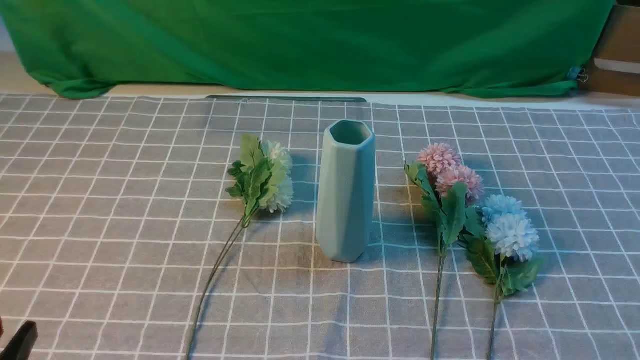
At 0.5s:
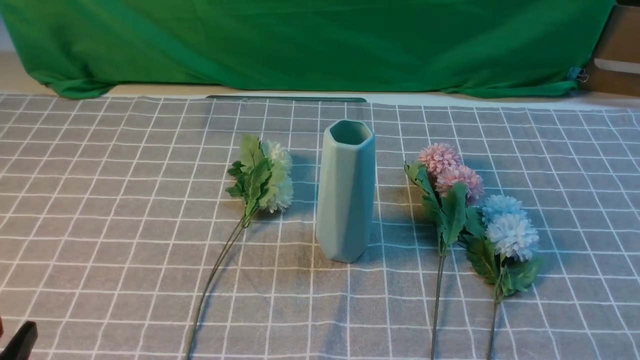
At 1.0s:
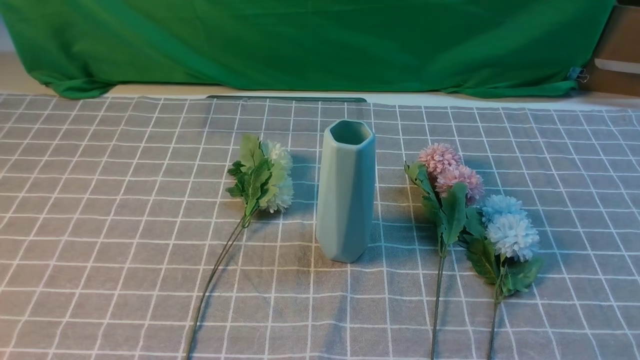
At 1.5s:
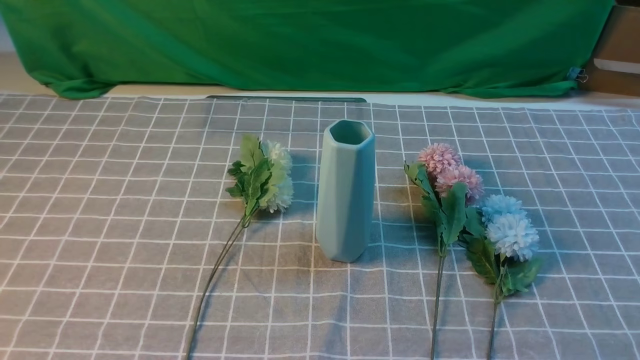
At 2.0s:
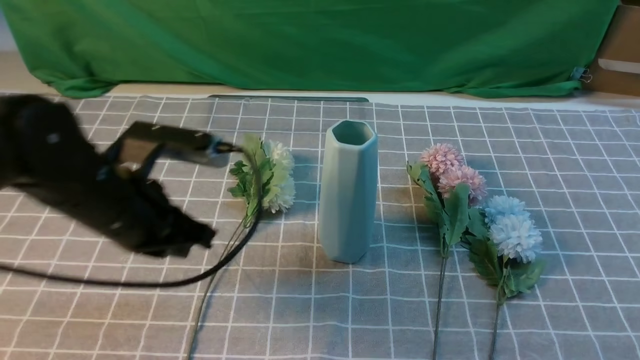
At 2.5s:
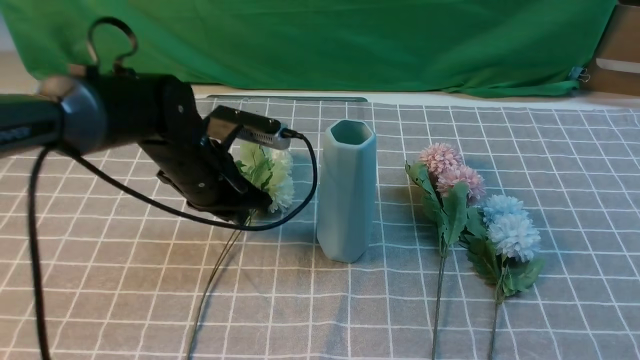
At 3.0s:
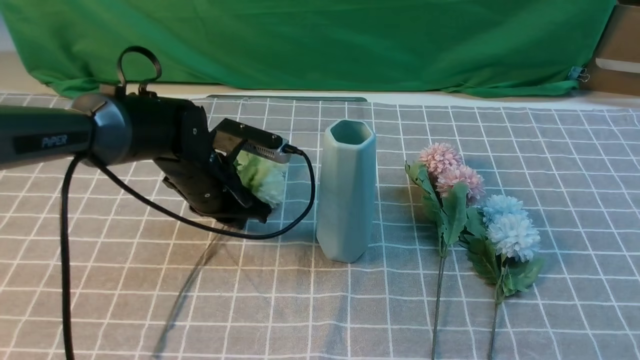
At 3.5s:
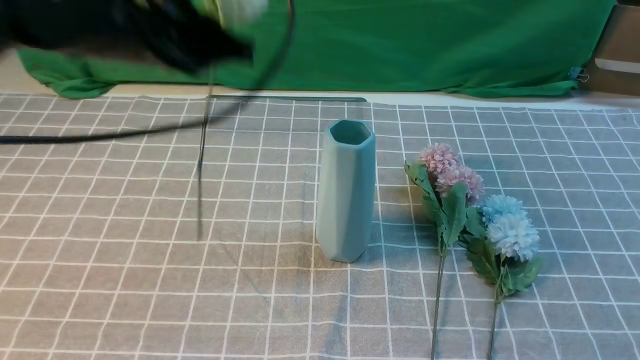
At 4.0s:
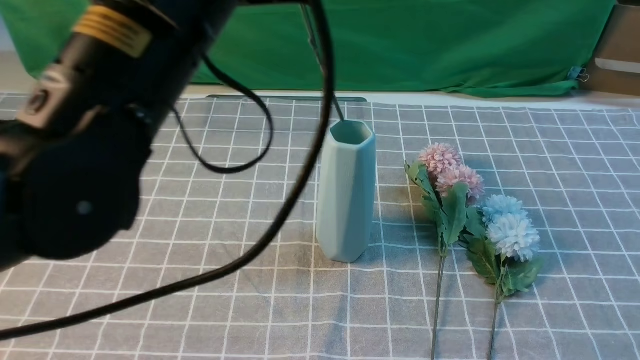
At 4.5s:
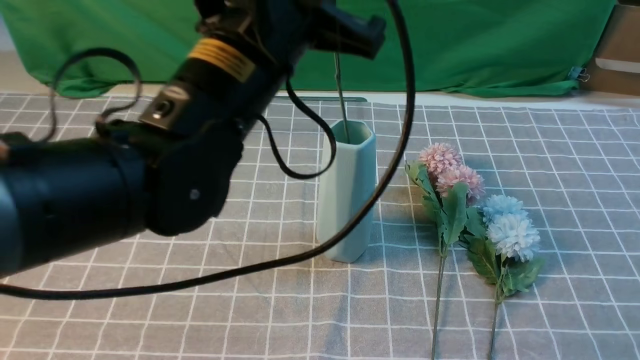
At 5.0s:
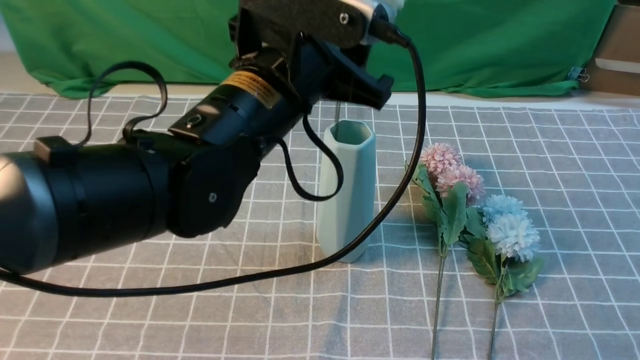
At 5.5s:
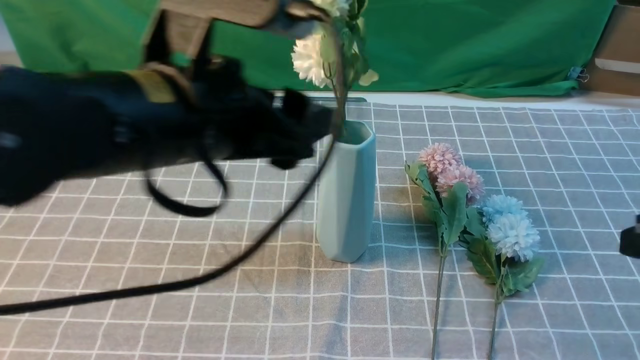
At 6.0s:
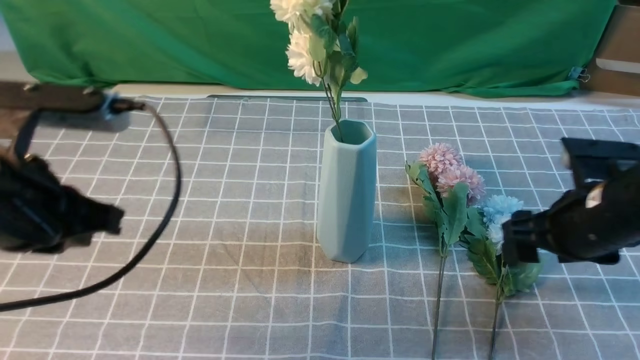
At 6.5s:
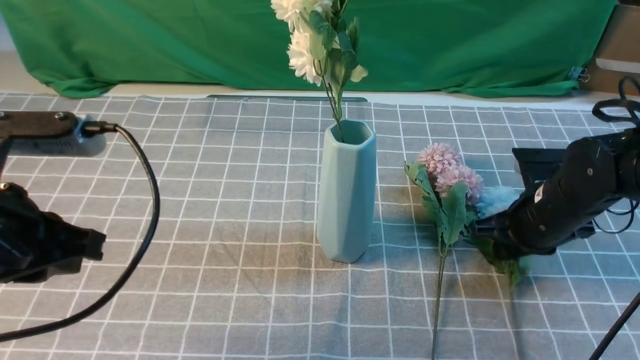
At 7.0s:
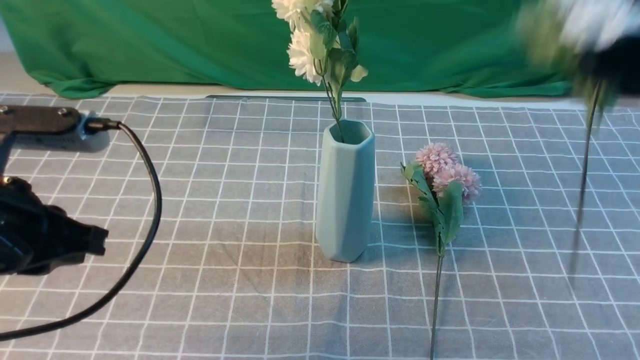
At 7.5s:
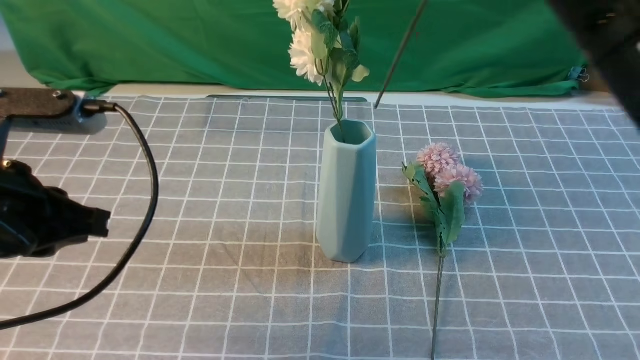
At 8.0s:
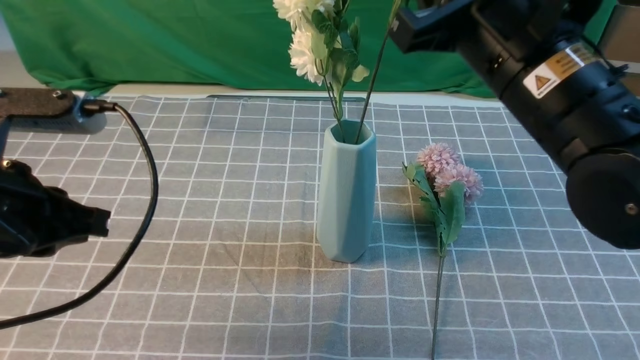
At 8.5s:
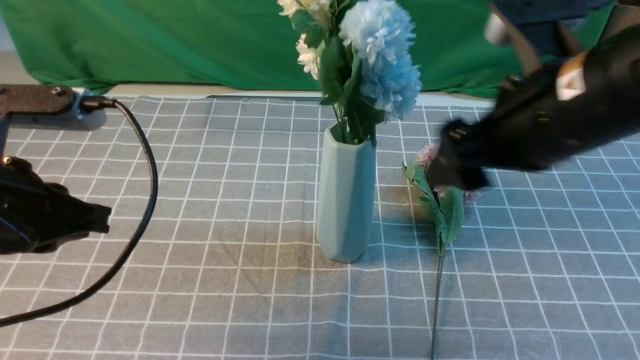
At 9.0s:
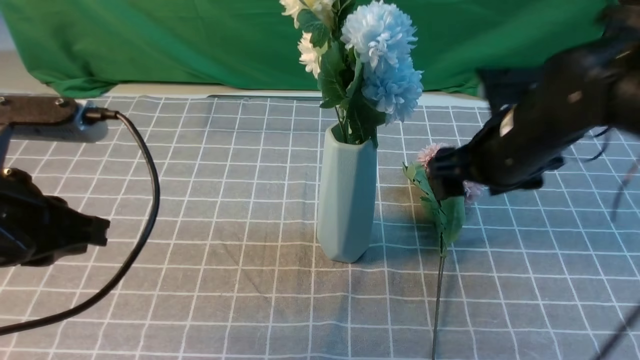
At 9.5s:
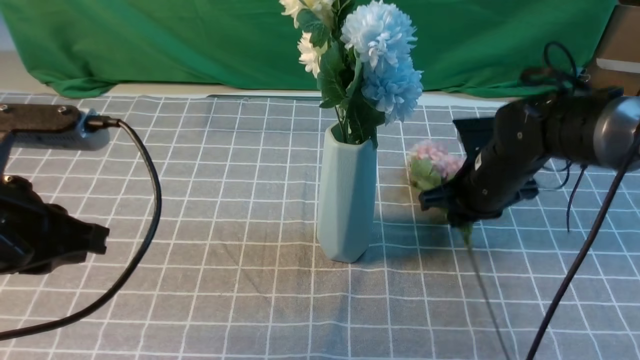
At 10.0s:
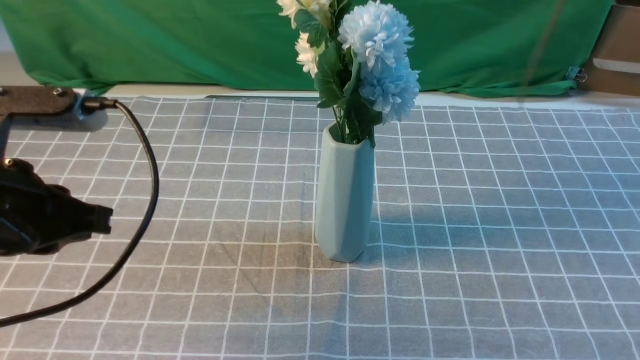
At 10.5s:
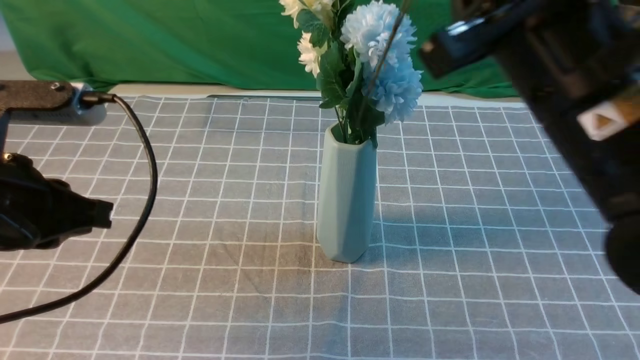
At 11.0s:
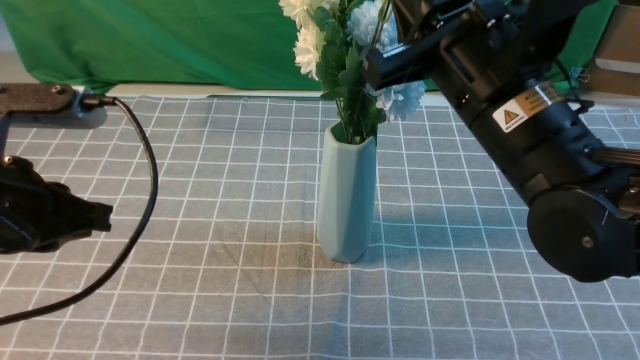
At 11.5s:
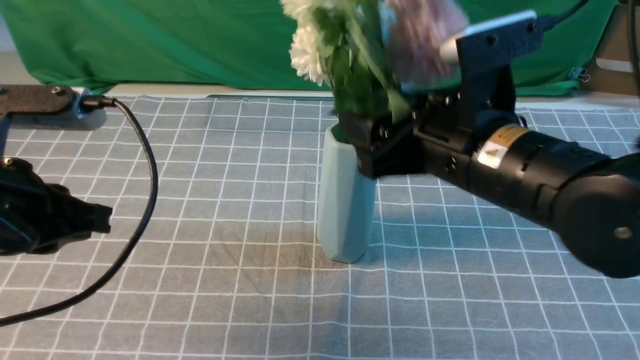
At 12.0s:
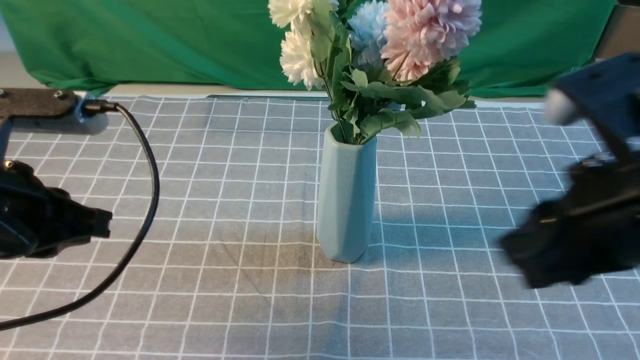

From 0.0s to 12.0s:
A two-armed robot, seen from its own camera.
Task of the whole recording: insert the flowers into the vase on the table with the grey tablecloth.
Step, from 0.0s to 3.0s: use the left arm to grab a bunch of fresh flowers.
Step, from 3.5s to 5.0s: use the left arm to insert the flowers into the vase.
Step, from 5.5s to 6.5s: use the right arm to grab a bunch of fresh flowers.
Step, from 7.0s to 8.0s: use the right arm to insert the flowers into the vase.
Step, from 8.5s to 9.5s: use the right arm to grab a bunch of fresh flowers.
Step, from 10.0s to 11.5s: use the right arm to insert the flowers into the vase.
From 0.0s to 2.0s: The left gripper goes about 25 cm forward, and closes. Meanwhile the right gripper is displaced upward by about 5 cm.
From 2.0s to 4.0s: The left gripper travels upward and to the right by approximately 15 cm, and opens and closes again. Meanwhile the right gripper is displaced upward and forward by some 10 cm.
From 4.0s to 6.0s: The right gripper travels forward and downward by about 20 cm, and opens up. The left gripper shifts some 15 cm to the left and downward, and opens, then closes again.
From 6.0s to 8.0s: The right gripper travels upward and to the left by roughly 20 cm, and closes up.
From 8.0s to 10.0s: The right gripper travels upward and to the right by about 15 cm, and opens, then closes again.
From 10.0s to 12.0s: The right gripper goes some 10 cm downward and backward, and opens and closes again.

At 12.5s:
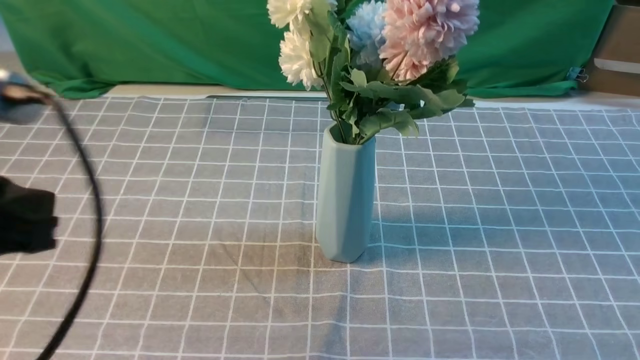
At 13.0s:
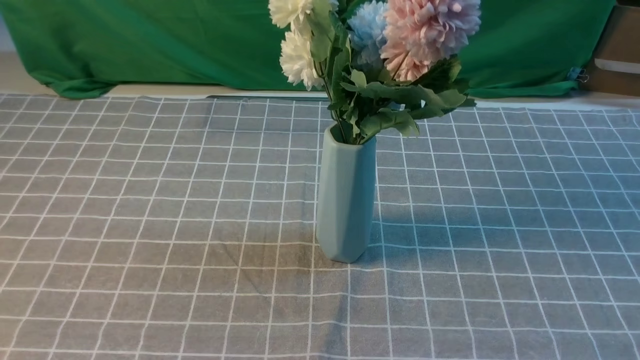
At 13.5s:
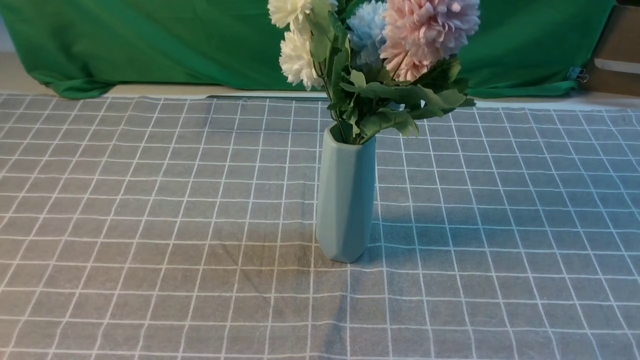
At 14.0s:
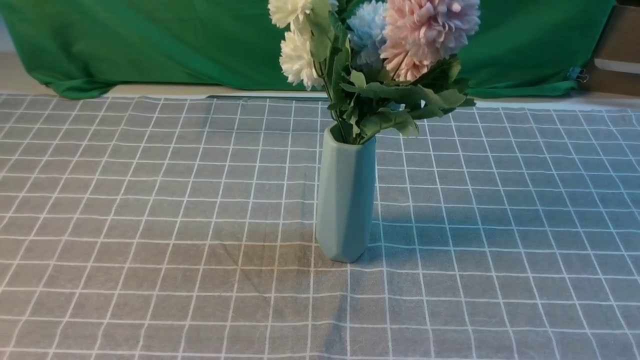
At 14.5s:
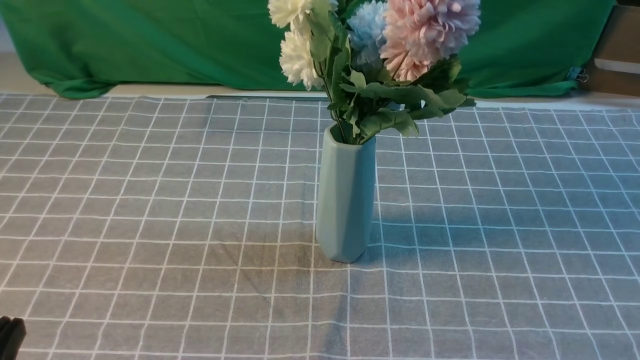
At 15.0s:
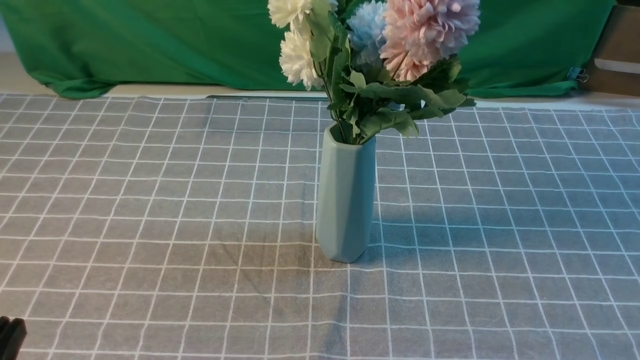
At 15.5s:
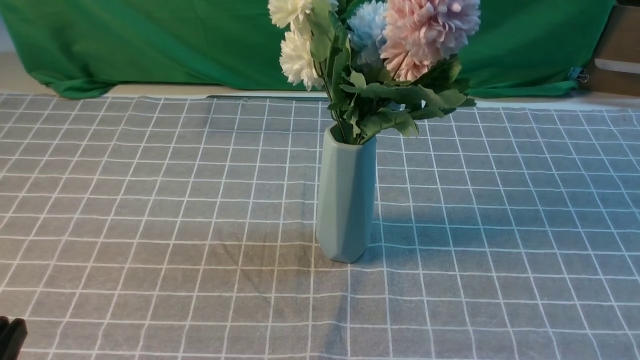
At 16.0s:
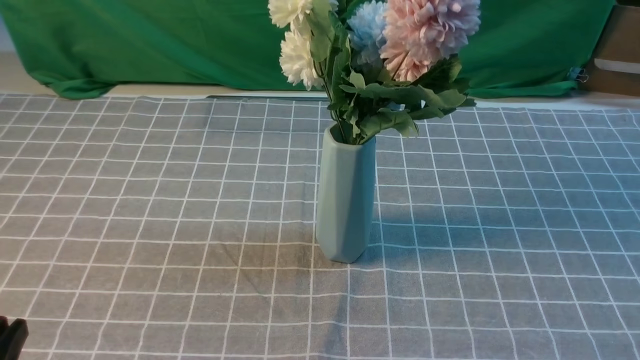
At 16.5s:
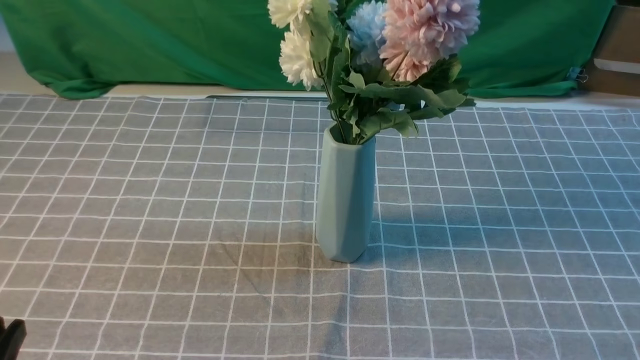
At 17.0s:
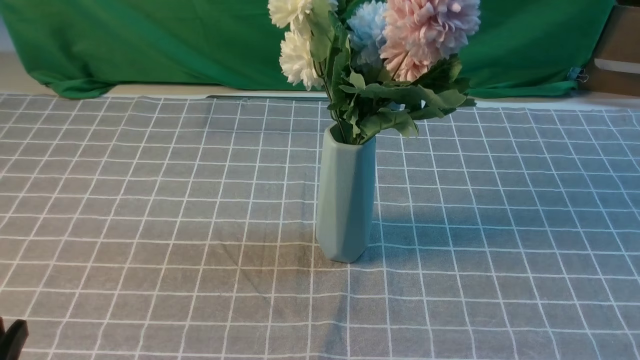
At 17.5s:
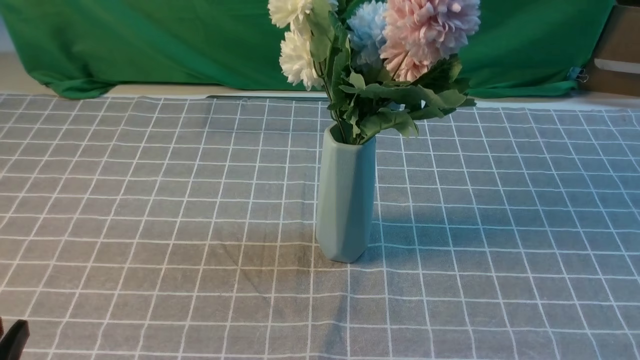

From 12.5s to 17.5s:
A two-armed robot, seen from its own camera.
Task of the whole recording: insert the flowers into the vase on the table with the grey tablecloth.
From 12.5s to 15.0s: The left gripper moves downward and backward, roughly 20 cm.
